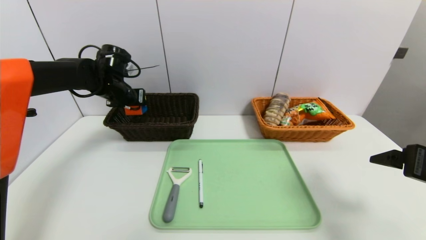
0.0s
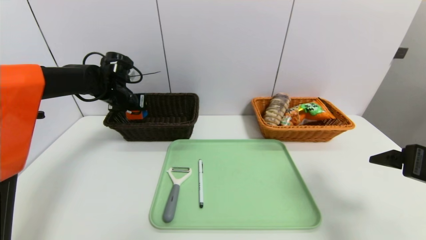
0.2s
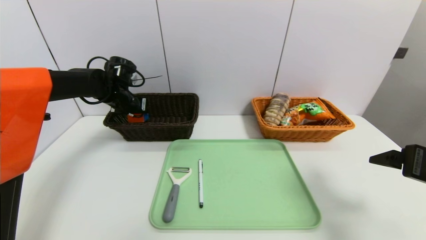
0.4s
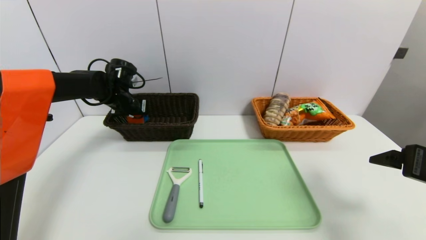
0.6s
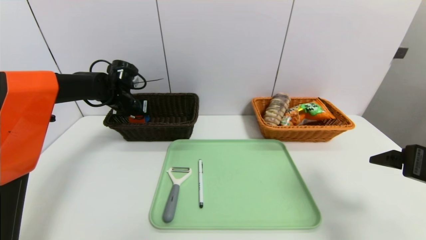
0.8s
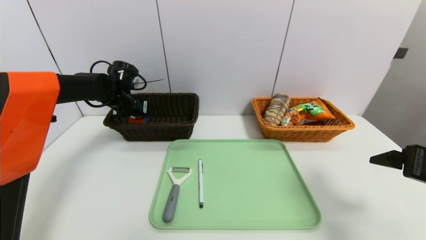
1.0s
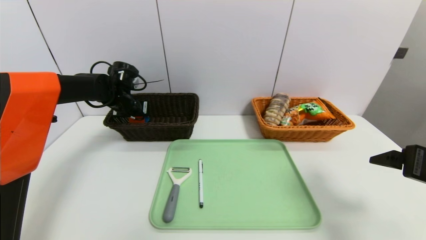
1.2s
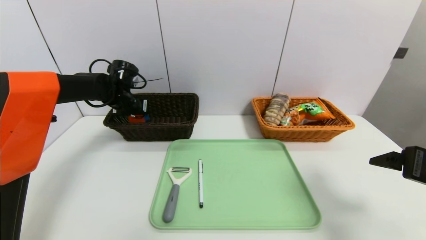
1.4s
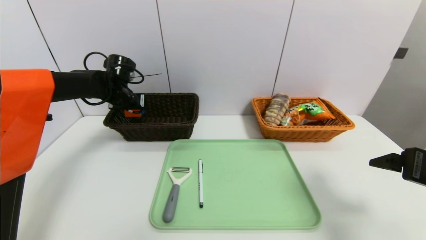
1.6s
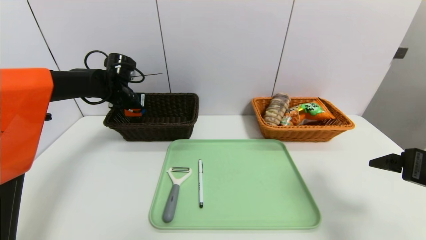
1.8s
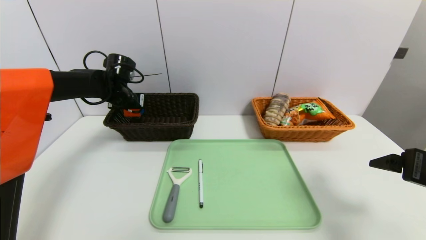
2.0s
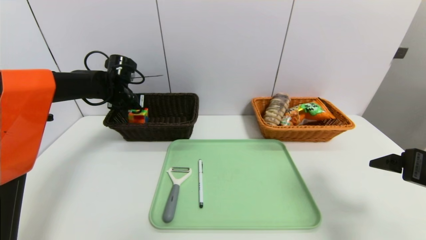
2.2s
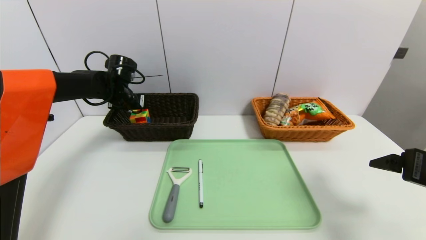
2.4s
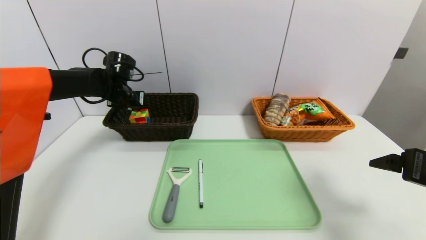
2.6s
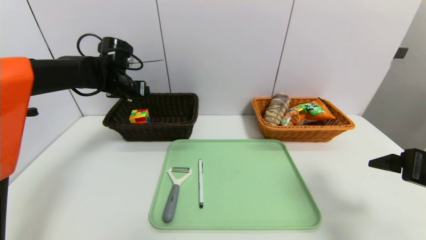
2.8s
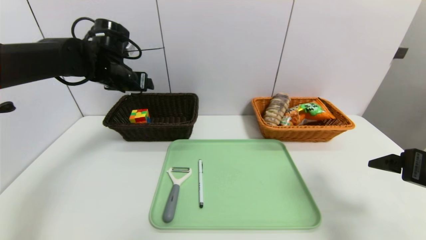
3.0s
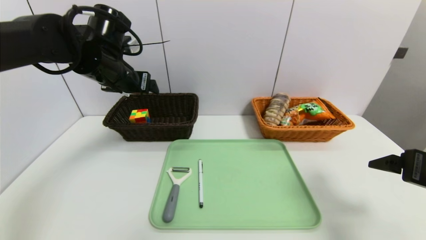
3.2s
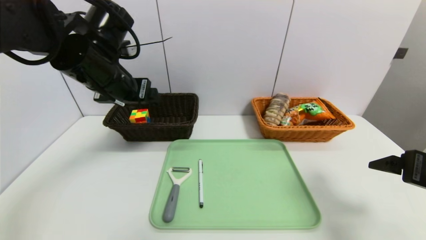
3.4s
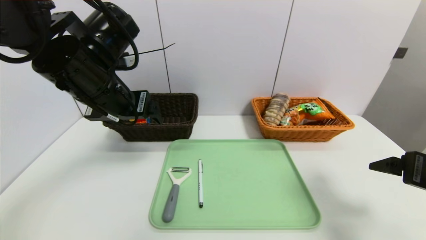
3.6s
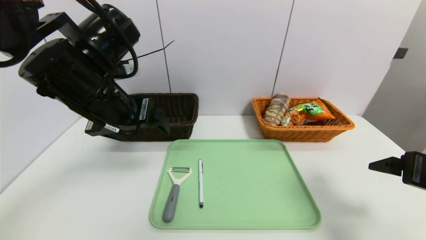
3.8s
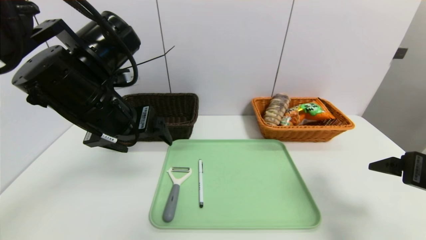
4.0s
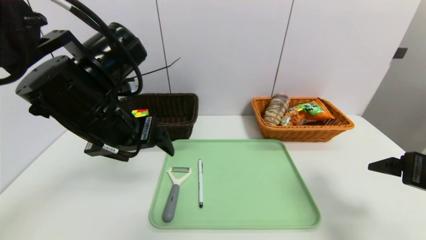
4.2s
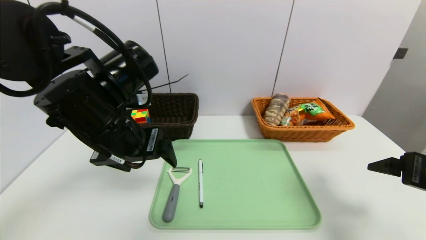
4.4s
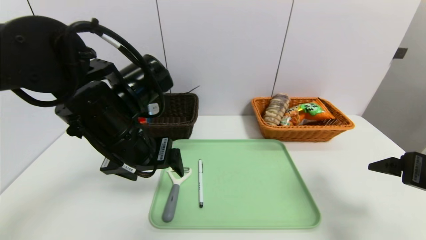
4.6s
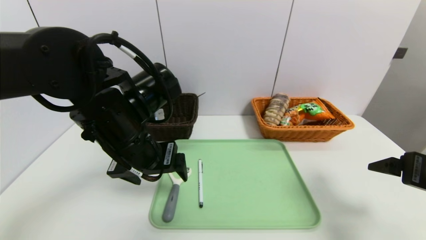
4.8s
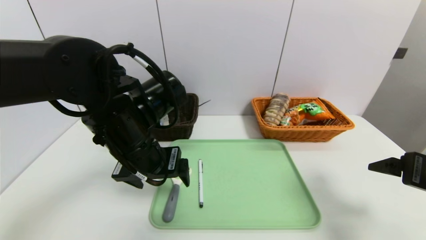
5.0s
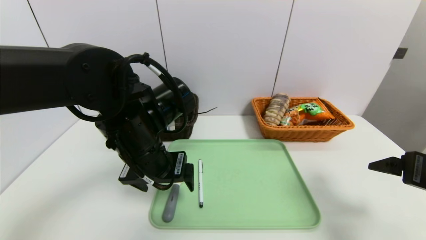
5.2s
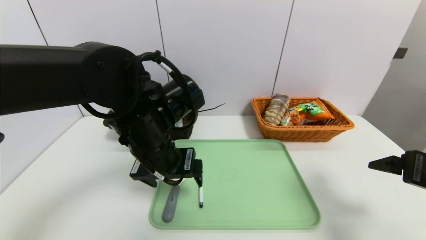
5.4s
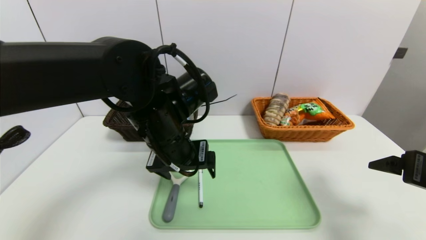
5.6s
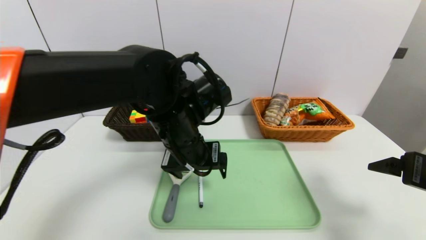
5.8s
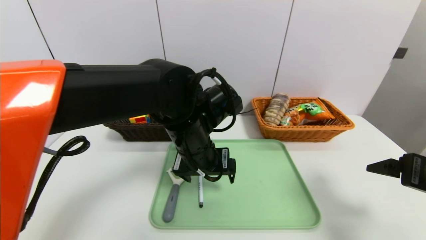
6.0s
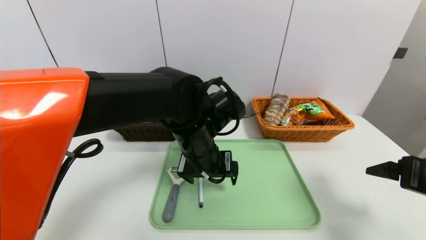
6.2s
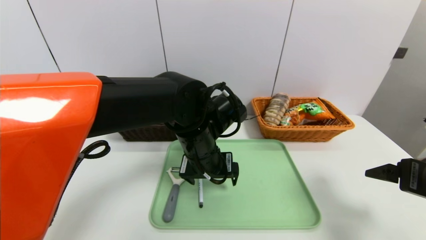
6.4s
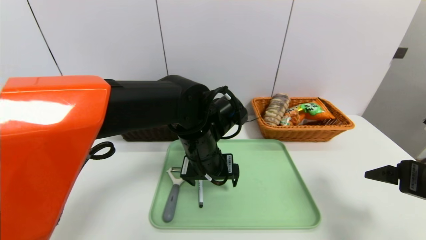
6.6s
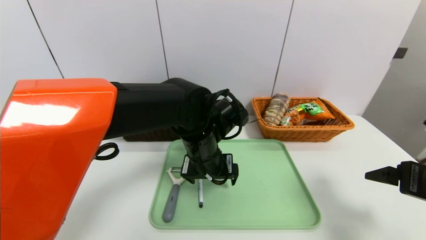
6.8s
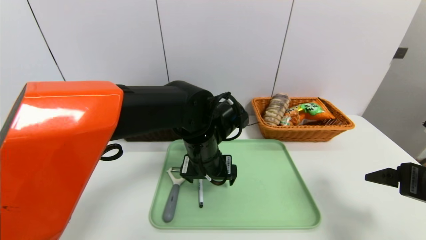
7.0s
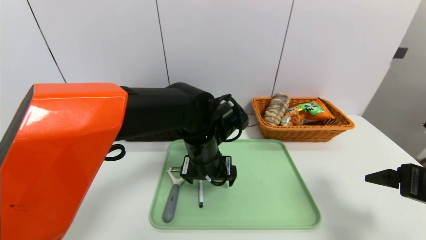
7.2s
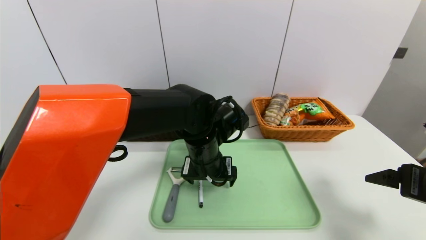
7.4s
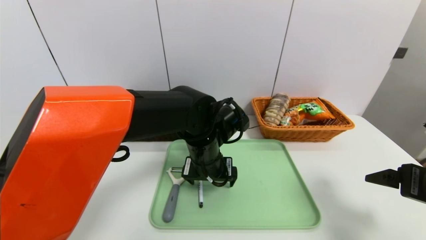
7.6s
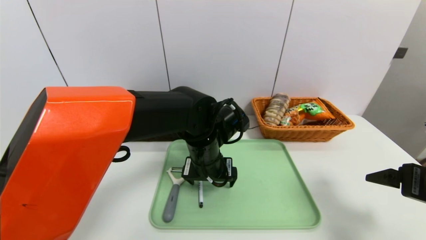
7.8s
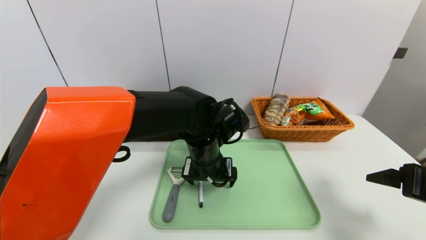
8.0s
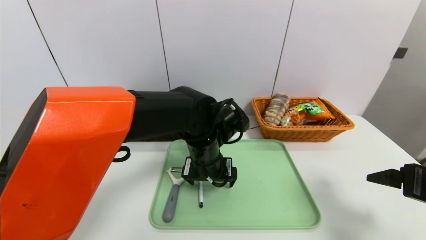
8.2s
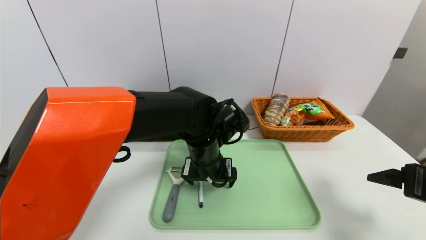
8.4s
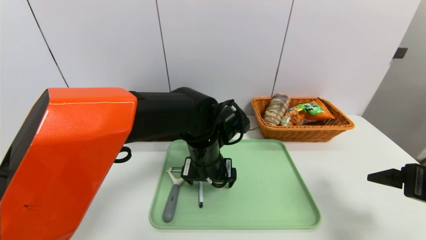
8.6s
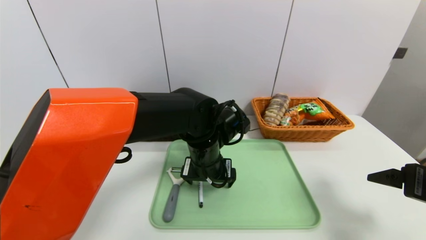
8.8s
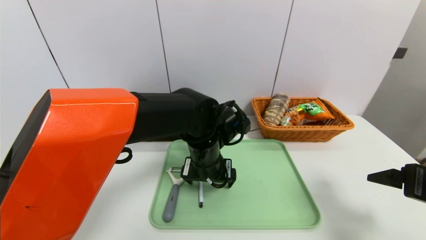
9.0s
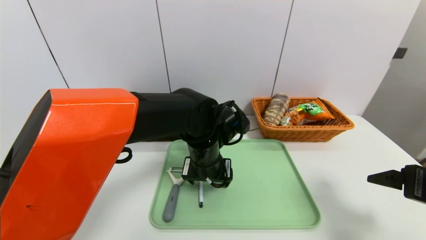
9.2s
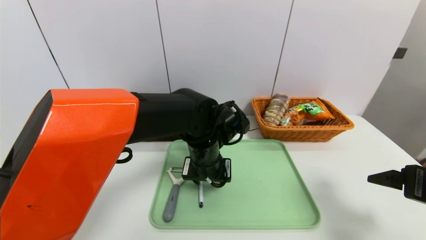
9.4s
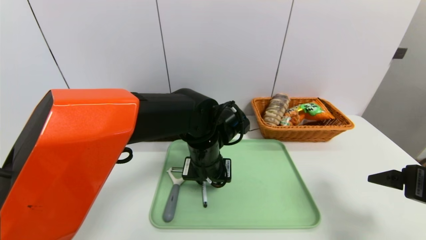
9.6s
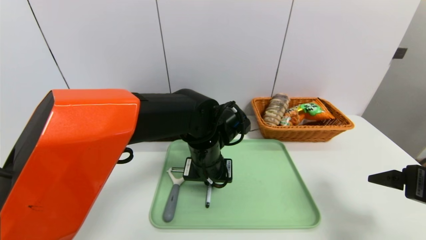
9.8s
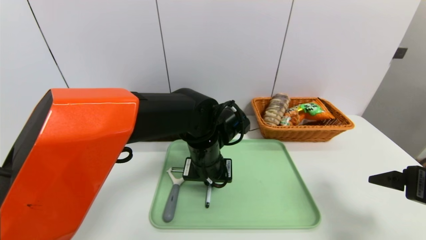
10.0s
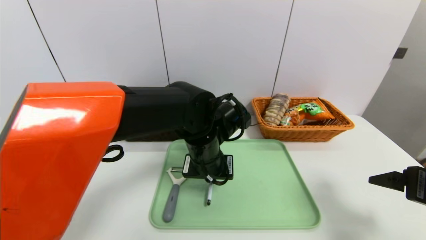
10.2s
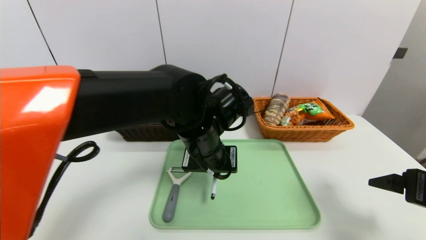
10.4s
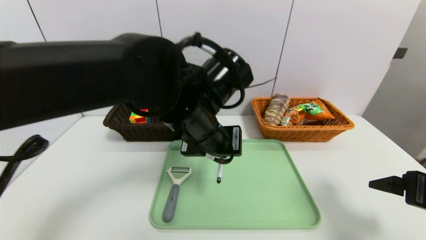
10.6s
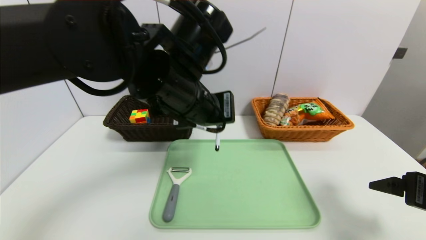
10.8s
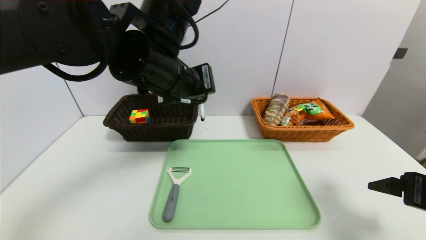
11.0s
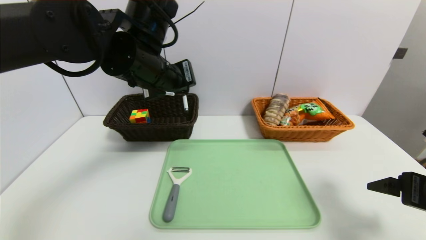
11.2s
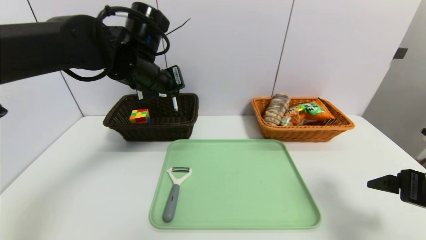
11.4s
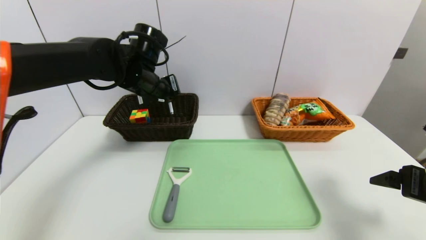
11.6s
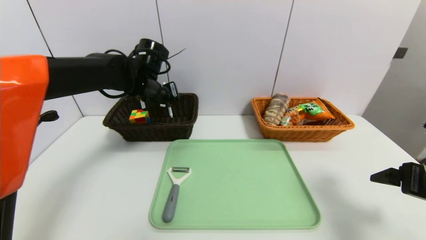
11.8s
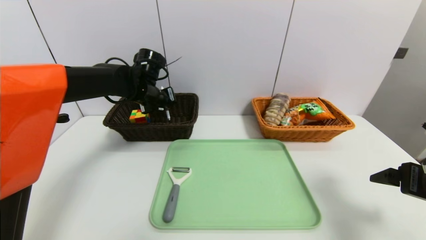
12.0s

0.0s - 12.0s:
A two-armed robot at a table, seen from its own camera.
Task of the whole recording: place the food in the right basket with the right gripper, and place the non food items in the left basket with the left gripper.
Step, 0.0s - 2.6s: Grasp the rubiks cube and put it in the left basket.
0.0s - 1.6s: There are only small adjustments of the grippers.
1.6s - 3.0s: The left gripper shifts some 10 cm upward and backward, and opens up.
3.0s - 4.4s: The left gripper goes approximately 20 cm backward and to the right.
4.4s - 6.0s: The left gripper goes approximately 15 cm to the right and downward.
6.0s - 7.6s: The left gripper moves about 5 cm.
7.6s - 9.0s: Neither gripper changes place.
9.0s - 10.4s: The left gripper moves upward, some 5 cm, and closes its fingers.
10.4s - 12.0s: The left gripper travels forward and to the left by approximately 20 cm.

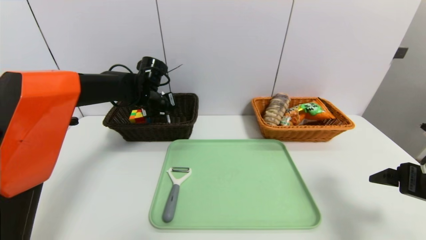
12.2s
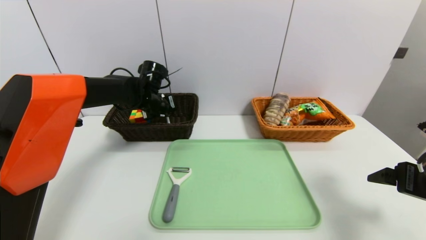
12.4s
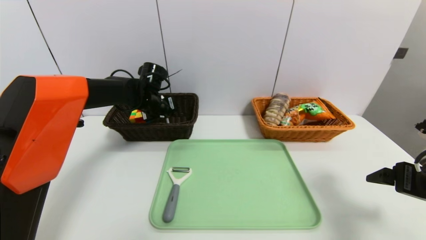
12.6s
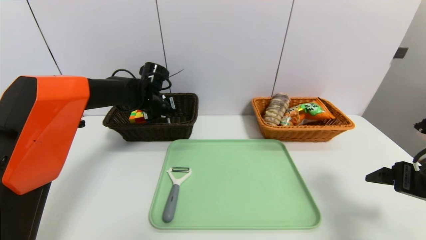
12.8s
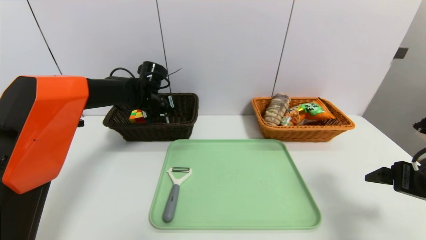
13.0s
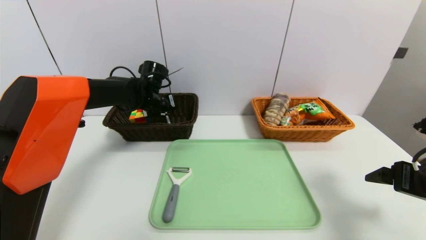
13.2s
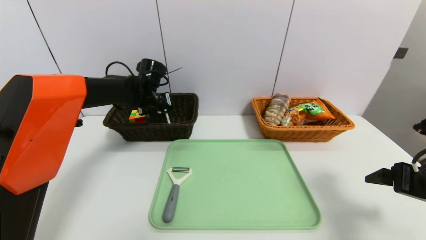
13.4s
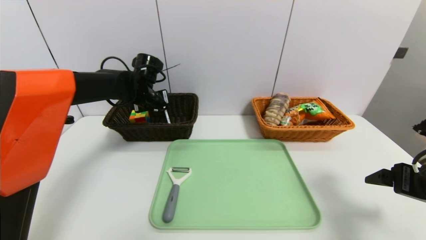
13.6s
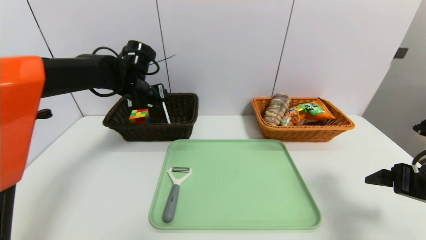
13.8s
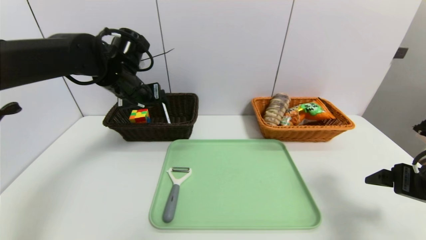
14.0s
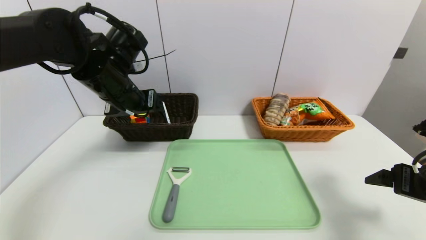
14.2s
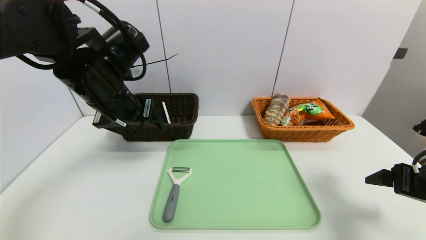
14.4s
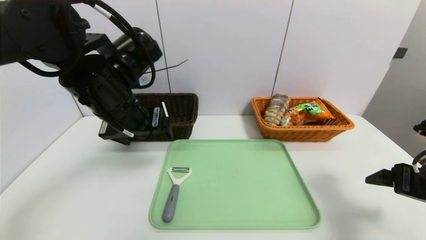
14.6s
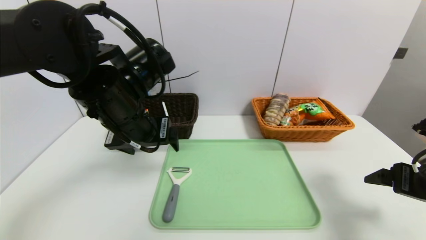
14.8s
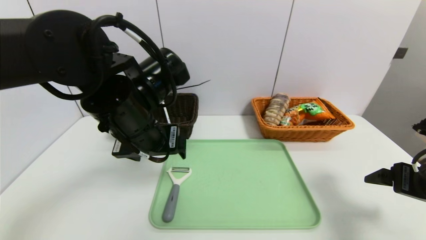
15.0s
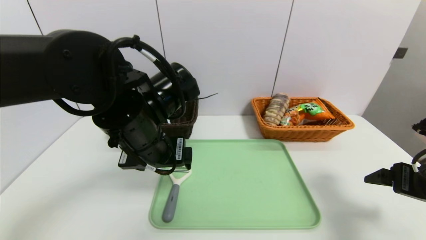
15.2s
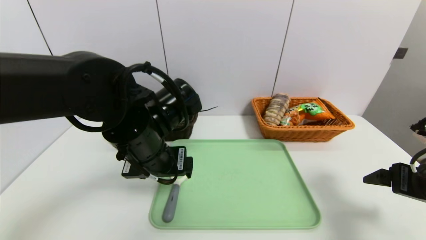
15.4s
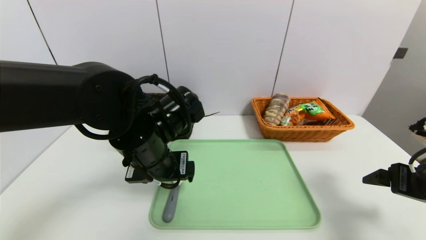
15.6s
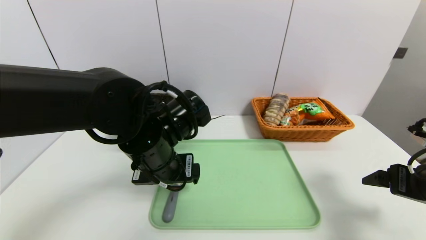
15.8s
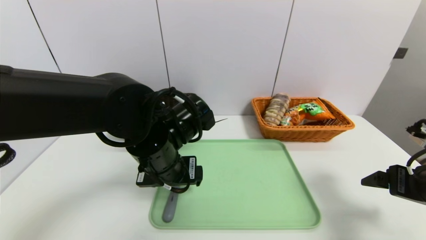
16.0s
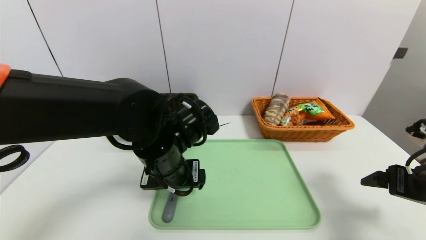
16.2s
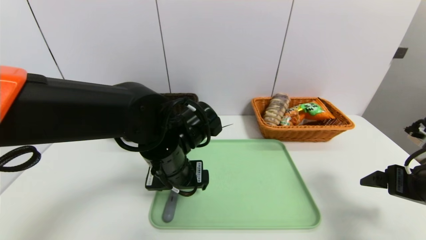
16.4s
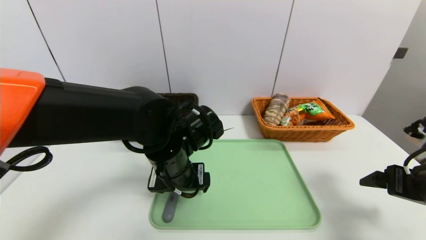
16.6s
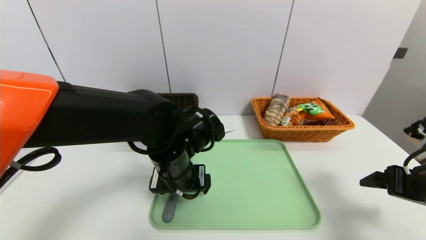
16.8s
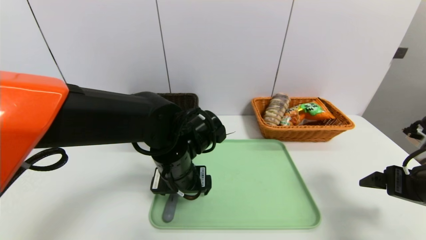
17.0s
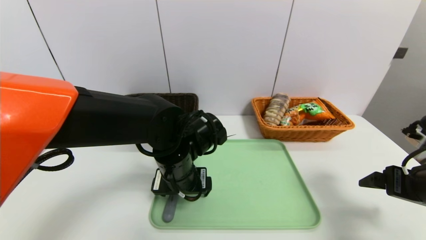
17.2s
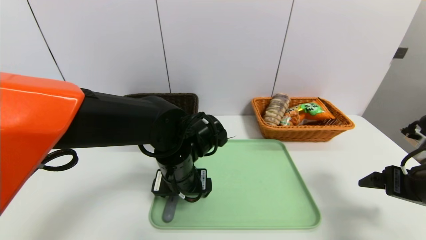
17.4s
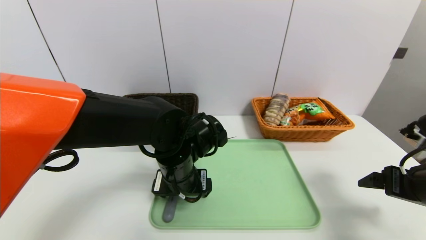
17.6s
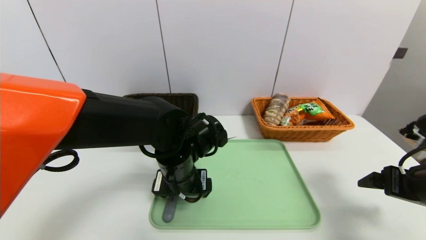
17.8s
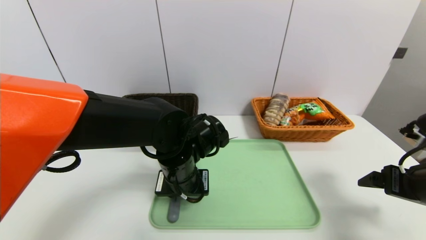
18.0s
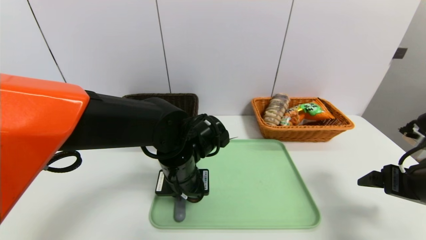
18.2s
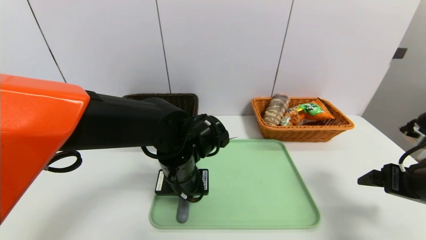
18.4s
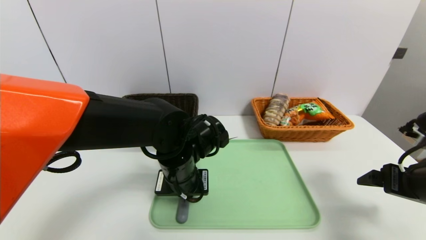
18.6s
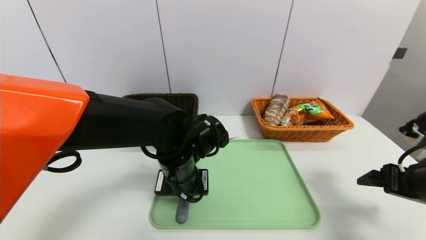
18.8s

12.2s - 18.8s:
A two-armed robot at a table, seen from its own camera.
Task of the whole recording: place the food in the right basket with the right gripper, and place the non food items in the left basket with the left gripper.
12.2s - 13.8s: The left gripper ends up some 5 cm from where it was, and opens its fingers.
13.8s - 15.4s: The left gripper travels backward and to the right by roughly 20 cm.
15.4s - 17.2s: The left gripper is displaced downward by roughly 5 cm.
17.2s - 18.8s: The left gripper closes up.
